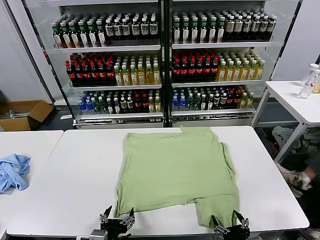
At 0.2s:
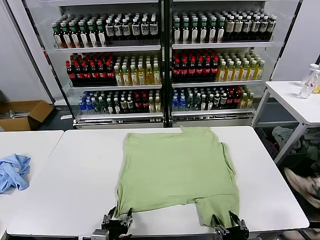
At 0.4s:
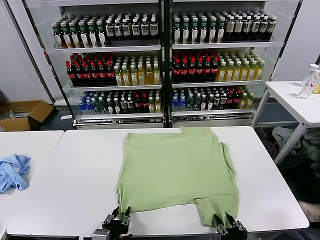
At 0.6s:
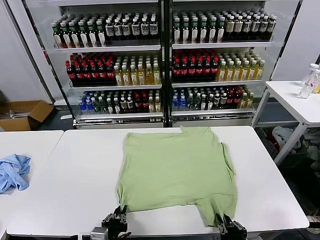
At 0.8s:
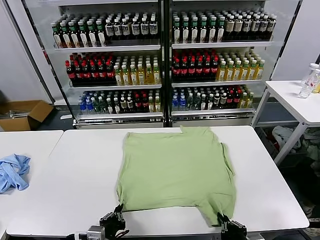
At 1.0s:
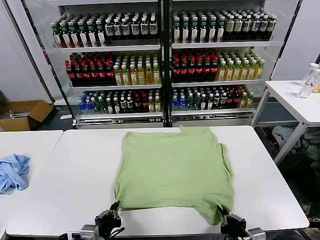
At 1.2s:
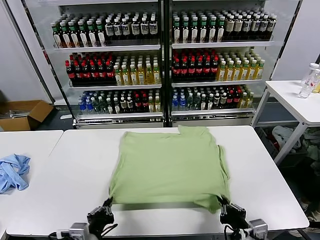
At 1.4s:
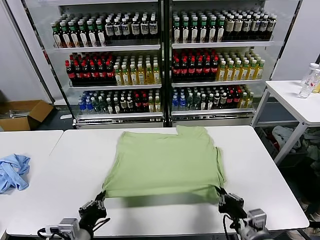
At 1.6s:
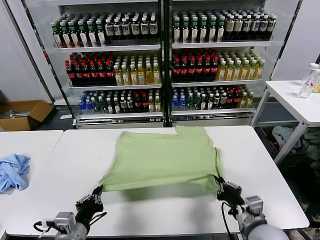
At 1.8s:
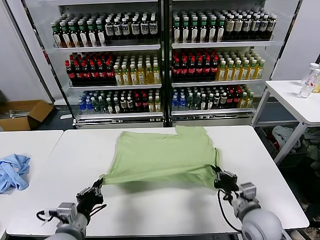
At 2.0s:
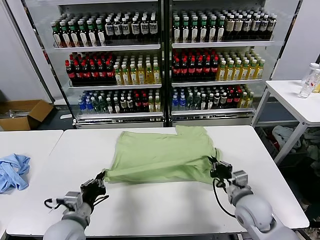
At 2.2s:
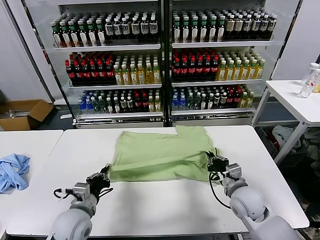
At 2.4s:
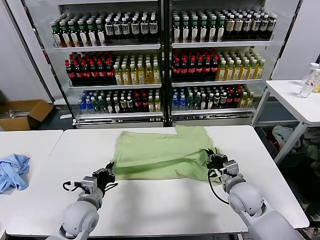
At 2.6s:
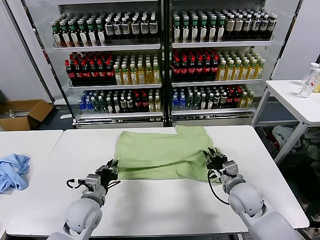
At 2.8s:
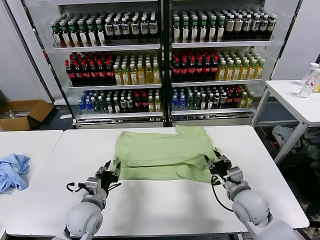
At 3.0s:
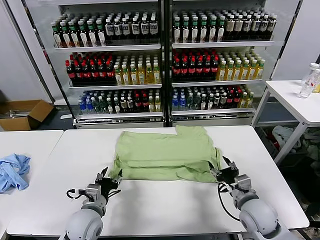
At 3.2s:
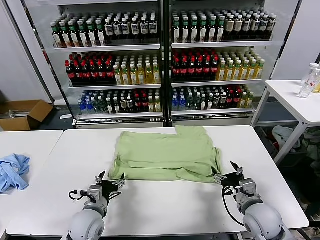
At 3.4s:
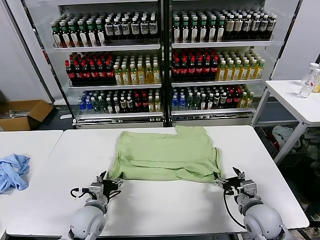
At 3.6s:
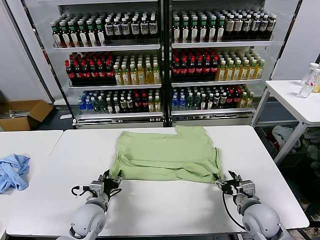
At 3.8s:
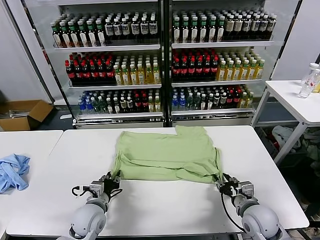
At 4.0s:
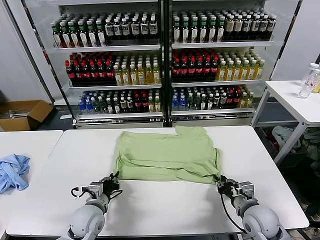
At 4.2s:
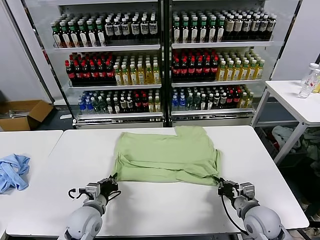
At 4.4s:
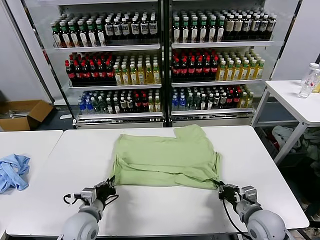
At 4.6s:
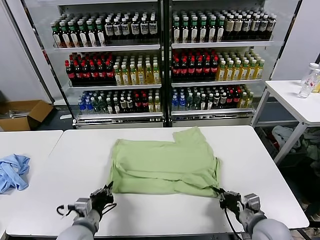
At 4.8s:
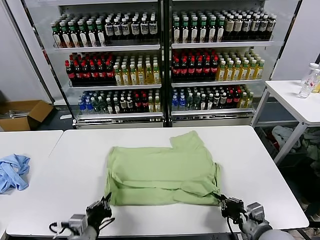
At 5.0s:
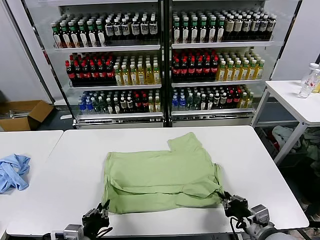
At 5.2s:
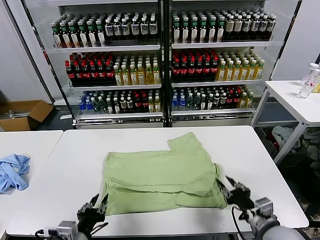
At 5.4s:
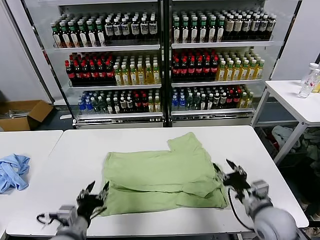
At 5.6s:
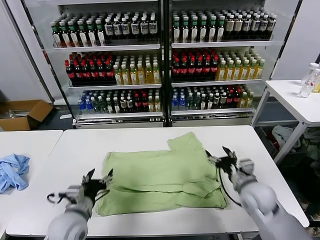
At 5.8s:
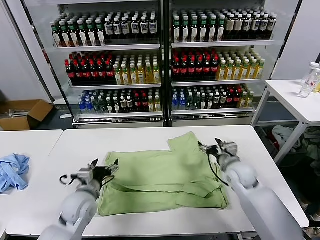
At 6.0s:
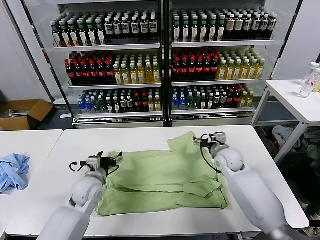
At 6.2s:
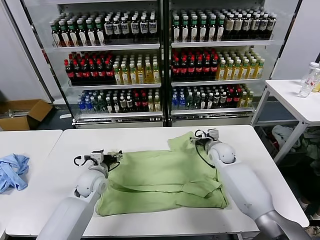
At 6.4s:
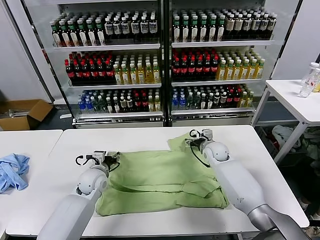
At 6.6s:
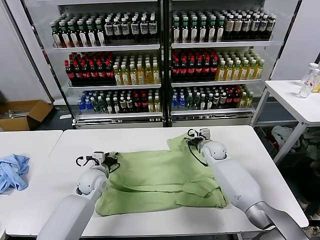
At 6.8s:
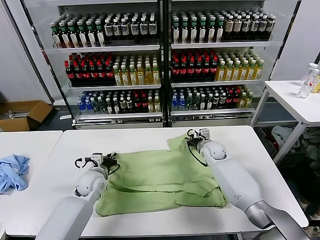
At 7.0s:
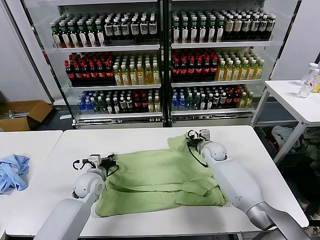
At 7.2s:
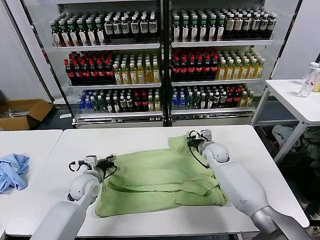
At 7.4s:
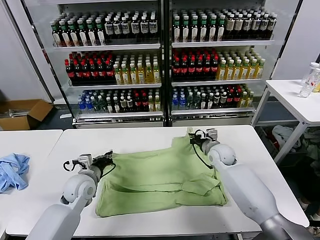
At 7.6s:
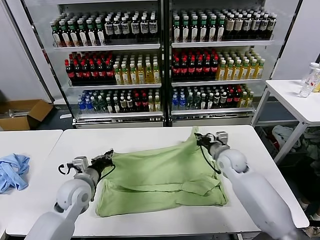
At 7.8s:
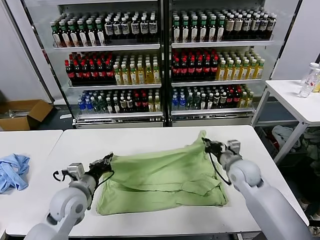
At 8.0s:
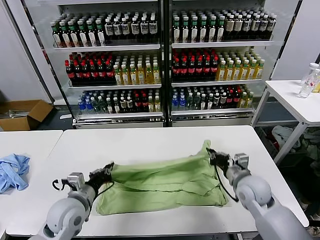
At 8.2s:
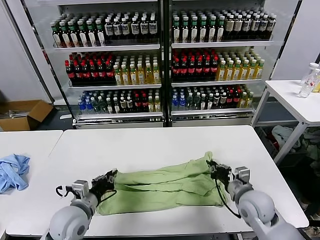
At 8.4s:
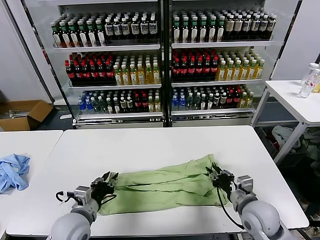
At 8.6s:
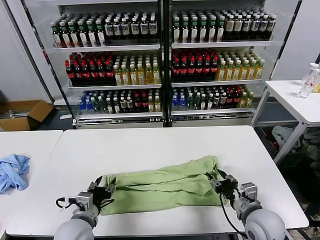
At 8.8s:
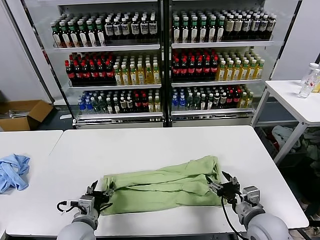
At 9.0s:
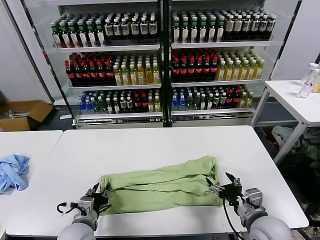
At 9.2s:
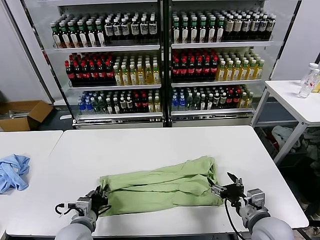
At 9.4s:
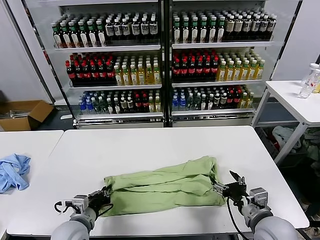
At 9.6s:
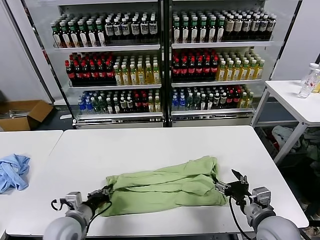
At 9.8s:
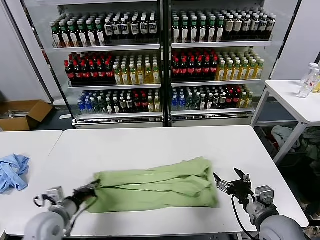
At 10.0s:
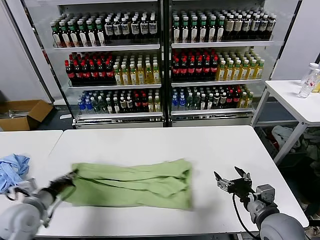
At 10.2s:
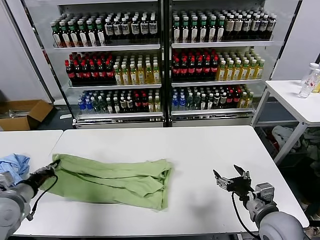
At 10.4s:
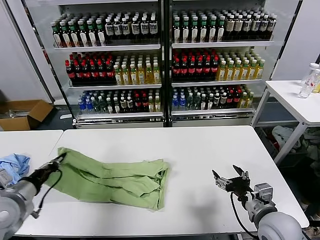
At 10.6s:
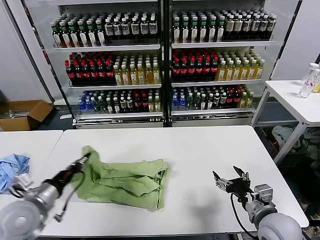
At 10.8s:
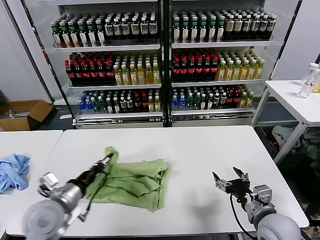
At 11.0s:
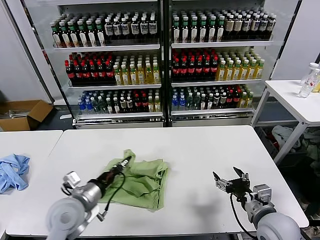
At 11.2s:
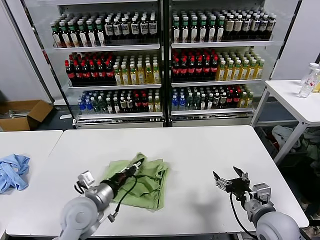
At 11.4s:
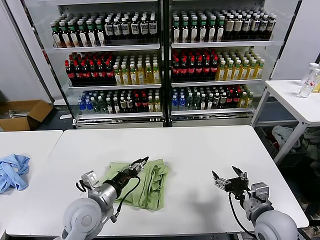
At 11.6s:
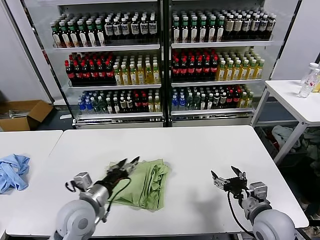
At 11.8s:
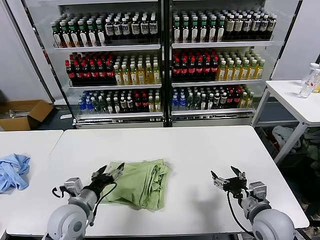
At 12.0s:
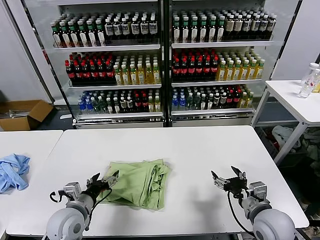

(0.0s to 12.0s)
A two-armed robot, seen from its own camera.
Task of the whole recording: fold and organize the clothes.
Step, 0.0s - 0.8s: use both grippers simultaneously to clamp the lower edge of the clothing fabric.
Step, 1.0s - 2.8s: use both grippers to drag the lower edge of the fabric forward and fold it over the upper edge.
Step, 3.0s - 5.0s: Drag the clothes downward with both gripper.
Step, 5.2s - 7.0s: use both grippers simultaneously to clamp the upper edge of the clothing fabric.
Step, 7.2s - 8.4s: use both grippers to drag the upper edge of the fabric backward and fold it over the lower edge.
Step, 8.8s - 9.4s: use the left gripper to clamp the left edge of the fabric.
Step, 9.6s - 11.2s: use the left gripper to drag the left edge of the fabric to the left and folds it over the right edge.
1.6s - 3.0s: The left gripper moves forward and downward, approximately 10 cm, and opens up; the right gripper moves about 10 cm forward and comes back, and opens up.
3.0s - 4.4s: The right gripper closes up. Meanwhile the left gripper closes.
4.4s - 6.0s: The right gripper is displaced forward by approximately 25 cm, and opens its fingers; the left gripper shifts some 10 cm forward, and opens its fingers.
6.0s - 7.6s: The right gripper is displaced backward by some 5 cm, and closes up. The left gripper shifts by about 5 cm, and closes its fingers.
7.6s - 9.0s: The right gripper travels backward by some 20 cm, and opens up. The left gripper goes about 15 cm backward and downward, and opens up.
9.0s - 10.4s: The left gripper heads to the left and upward, covering roughly 20 cm, and closes its fingers.
10.4s - 12.0s: The left gripper moves to the right and downward, some 15 cm, and opens.

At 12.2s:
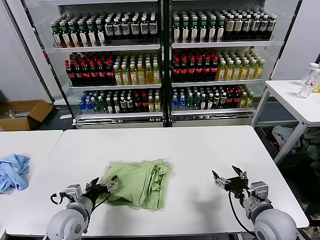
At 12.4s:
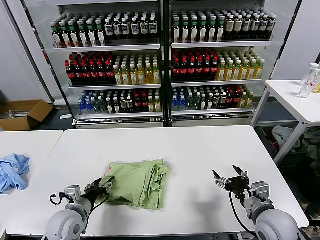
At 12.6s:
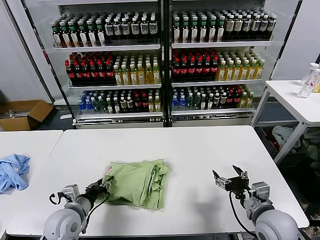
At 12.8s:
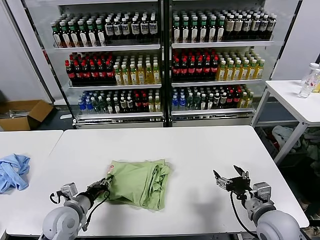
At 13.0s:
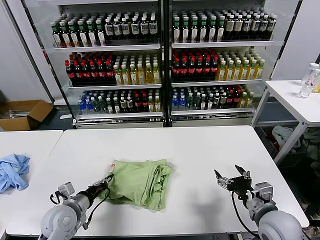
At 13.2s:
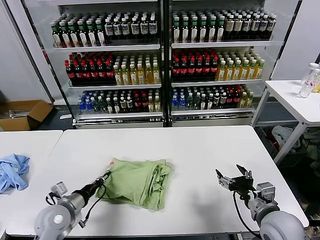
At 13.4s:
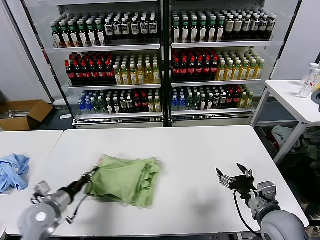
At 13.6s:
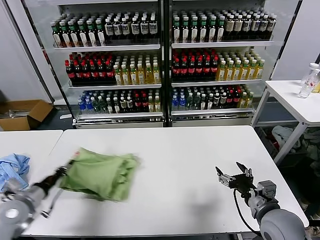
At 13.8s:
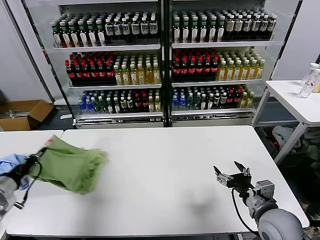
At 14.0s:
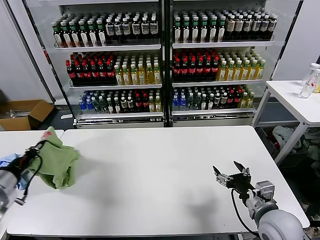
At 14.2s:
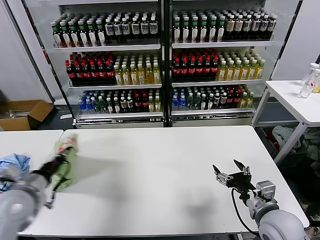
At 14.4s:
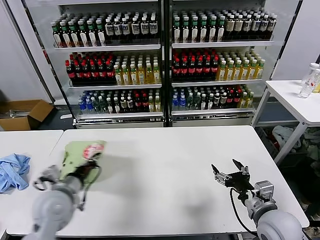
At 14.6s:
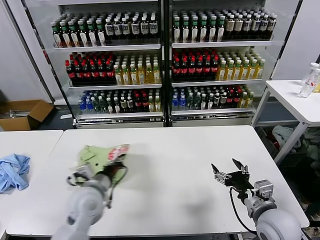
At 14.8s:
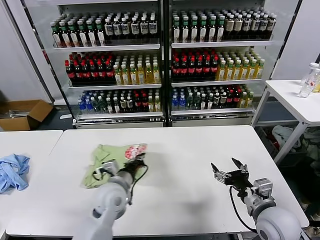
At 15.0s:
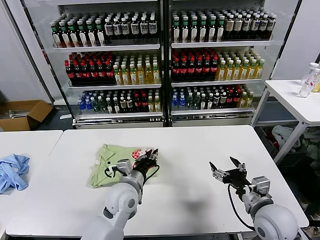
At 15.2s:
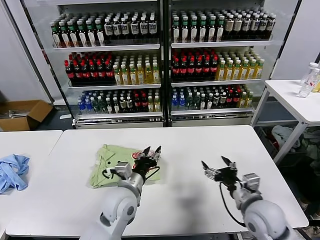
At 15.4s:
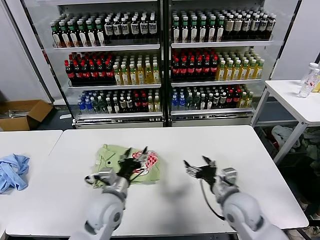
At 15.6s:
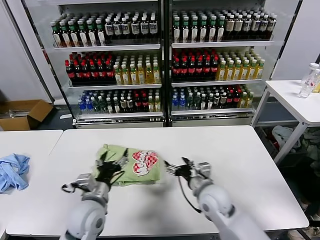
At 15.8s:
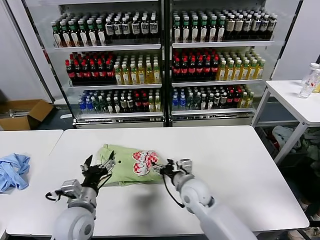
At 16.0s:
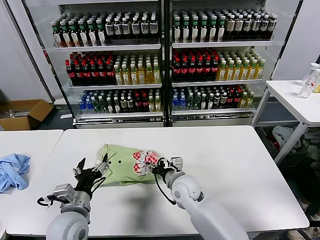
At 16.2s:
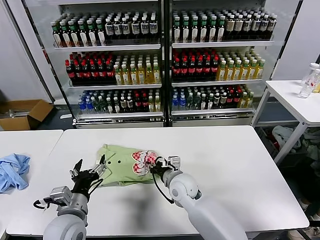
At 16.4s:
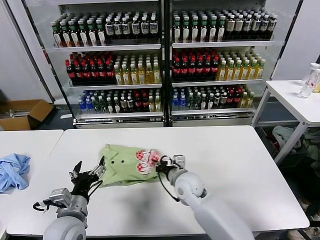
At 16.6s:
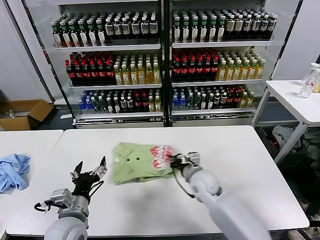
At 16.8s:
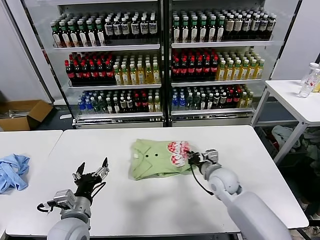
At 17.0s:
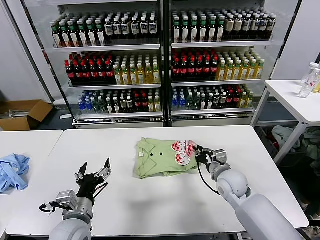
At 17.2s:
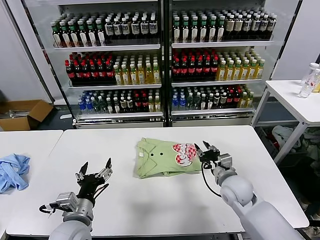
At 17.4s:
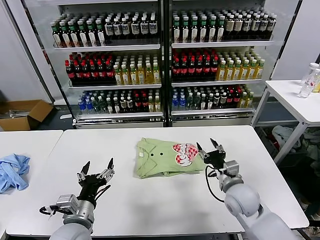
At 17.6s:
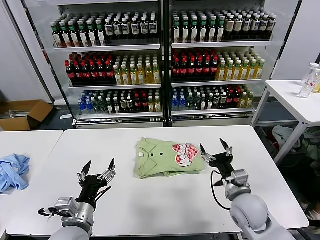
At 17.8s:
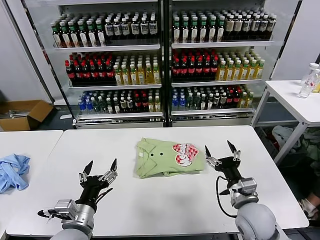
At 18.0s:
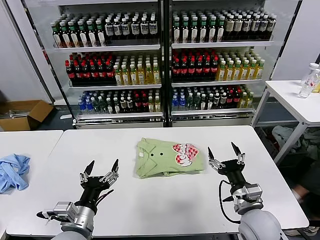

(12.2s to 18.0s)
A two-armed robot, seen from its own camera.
Task of the whole recording: fold and organize the clothes.
Step, 12.2s - 15.0s: Flip the folded clothes over with left gripper.
Step, 15.2s - 17.0s: Drag the clothes to the center of the table.
12.2s - 13.6s: The left gripper goes approximately 15 cm to the left, and closes up.
13.6s - 15.0s: The left gripper moves to the right, some 30 cm.
15.0s - 16.6s: The left gripper goes about 15 cm to the left and backward, and opens up; the right gripper goes about 20 cm to the left and forward, and closes its fingers.
16.6s - 18.0s: The right gripper is displaced backward and to the right by roughly 20 cm, and opens.

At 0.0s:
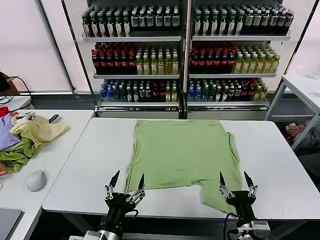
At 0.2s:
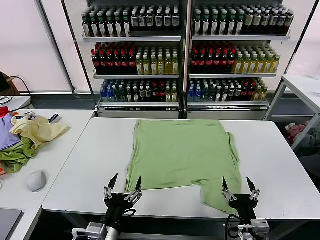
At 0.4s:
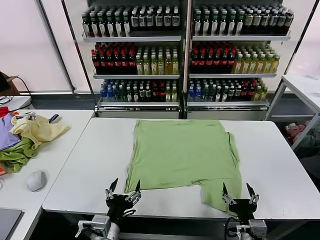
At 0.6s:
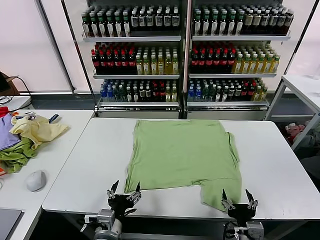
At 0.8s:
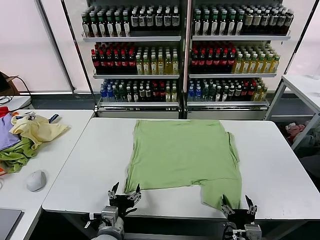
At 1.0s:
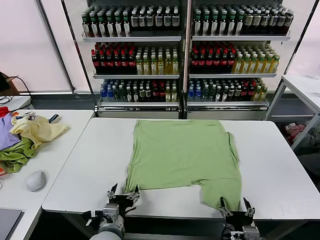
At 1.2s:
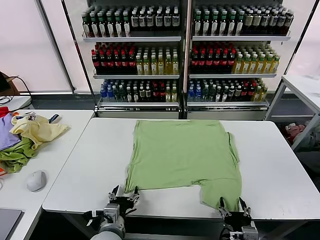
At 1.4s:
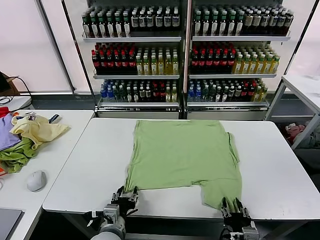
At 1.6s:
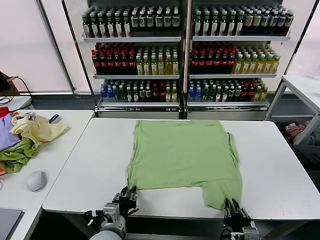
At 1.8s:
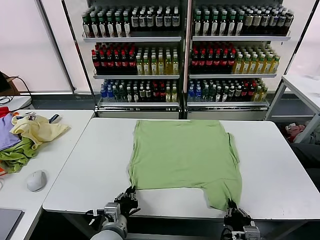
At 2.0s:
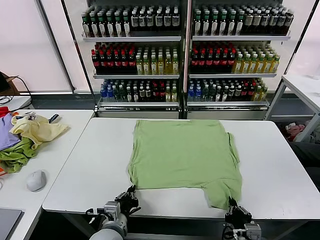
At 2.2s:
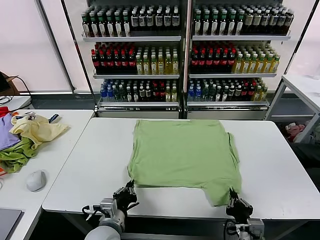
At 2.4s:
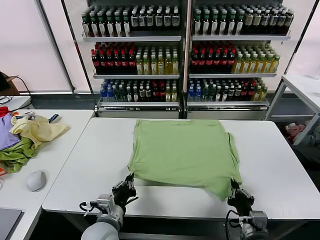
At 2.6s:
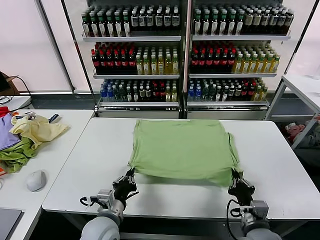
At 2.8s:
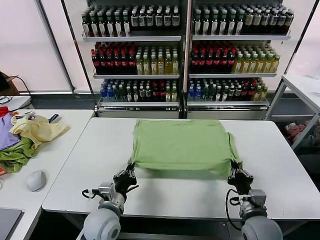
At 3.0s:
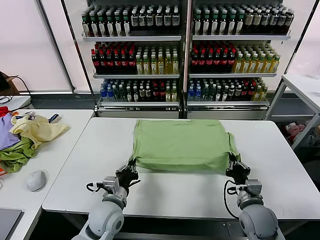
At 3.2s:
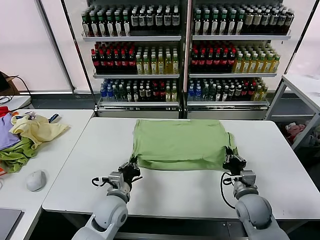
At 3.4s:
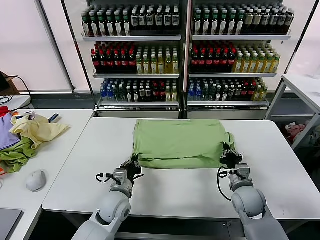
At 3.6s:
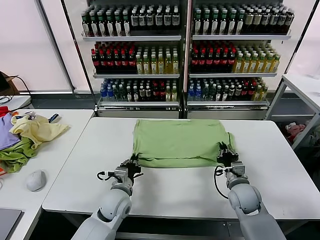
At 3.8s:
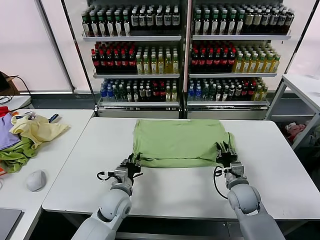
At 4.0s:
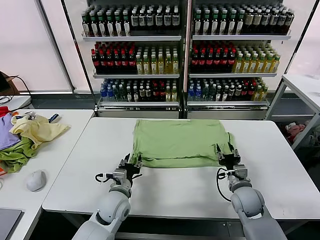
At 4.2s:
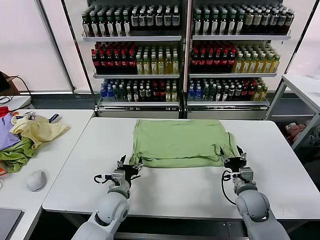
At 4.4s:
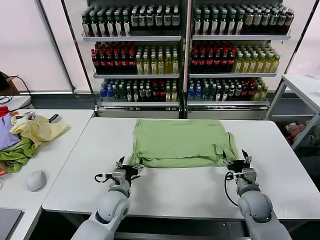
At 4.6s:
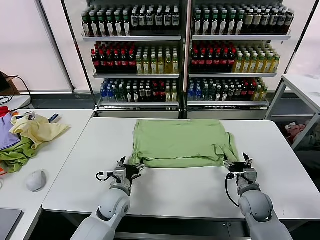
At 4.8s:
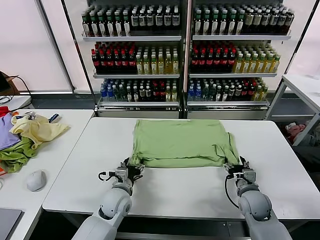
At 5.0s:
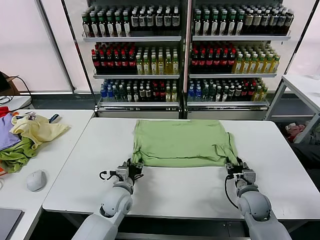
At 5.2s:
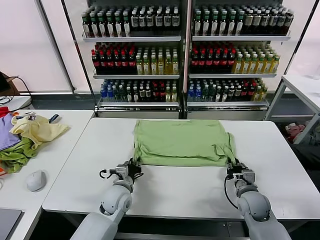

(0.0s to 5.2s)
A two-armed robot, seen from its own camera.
Task of the whole recording: fold and organize the clothes.
Step, 0.0s - 1.8s: use both grippers simultaneously to clamp the lower edge of the clothing fabric.
Step, 2.0s - 3.8s: use both grippers to drag the lower edge of the fabric forward and fold it over the upper edge.
1.8s - 3.4s: The right gripper shifts roughly 20 cm forward, while the left gripper shifts approximately 10 cm forward.
3.4s - 5.2s: The left gripper opens, then closes again. Meanwhile the right gripper ends up approximately 5 cm from where it was, and opens and closes again.
